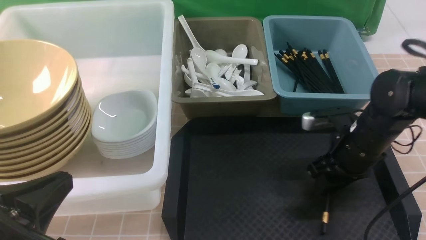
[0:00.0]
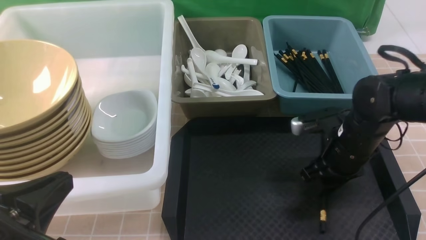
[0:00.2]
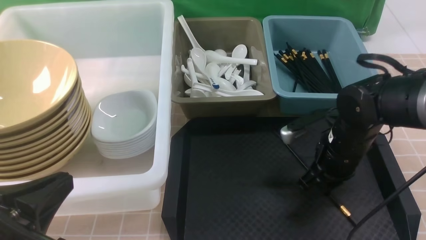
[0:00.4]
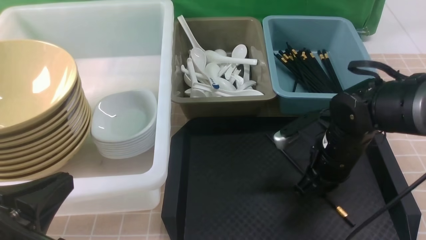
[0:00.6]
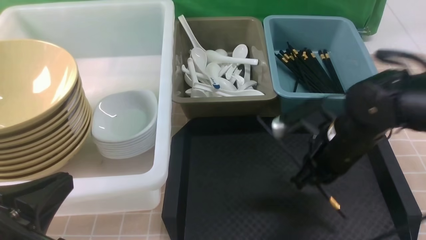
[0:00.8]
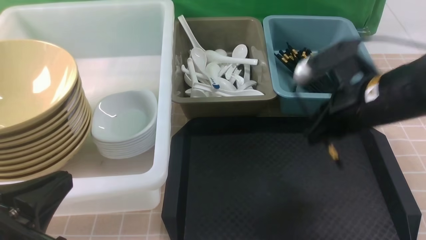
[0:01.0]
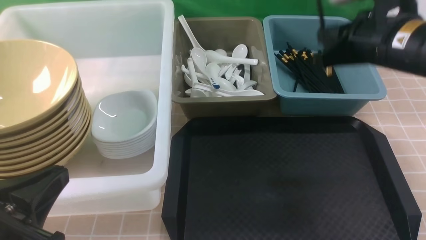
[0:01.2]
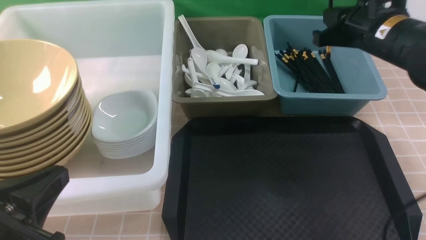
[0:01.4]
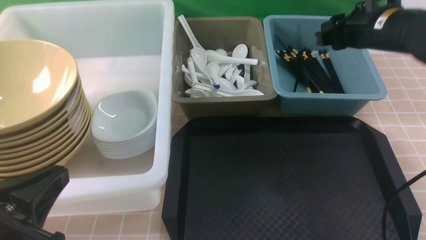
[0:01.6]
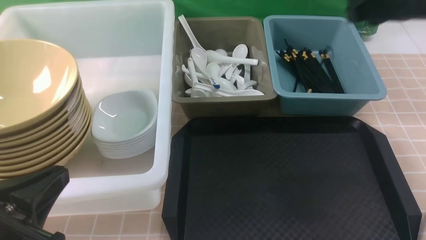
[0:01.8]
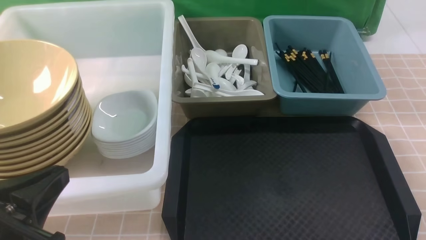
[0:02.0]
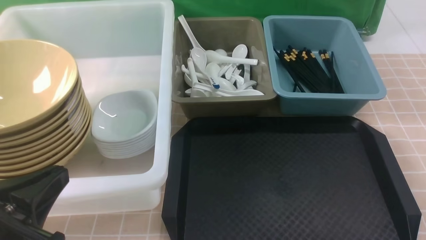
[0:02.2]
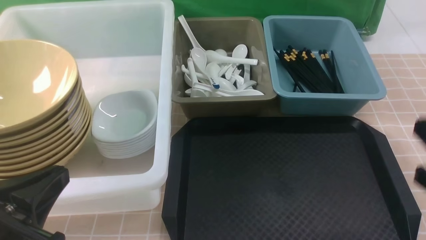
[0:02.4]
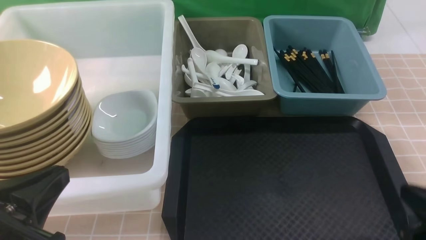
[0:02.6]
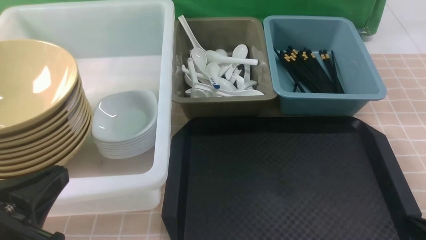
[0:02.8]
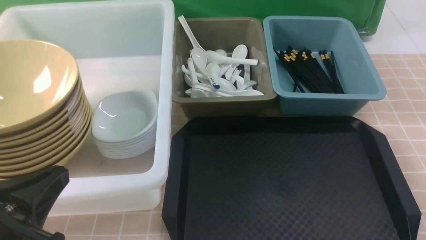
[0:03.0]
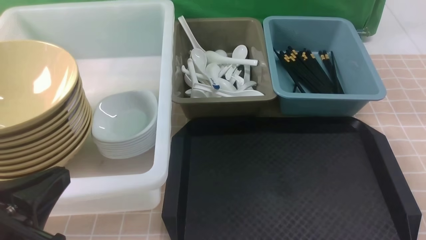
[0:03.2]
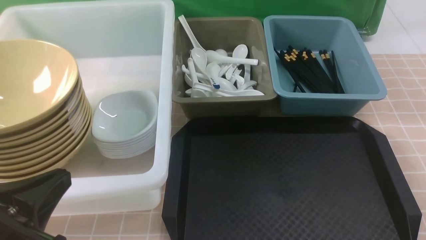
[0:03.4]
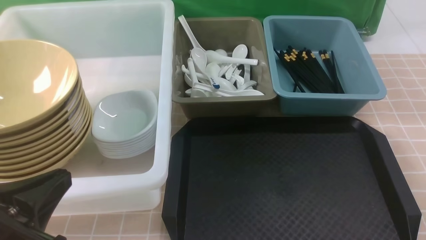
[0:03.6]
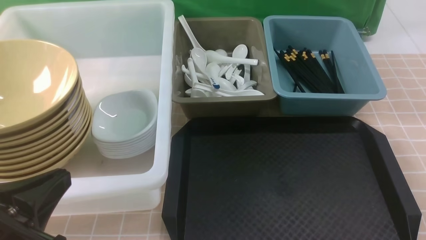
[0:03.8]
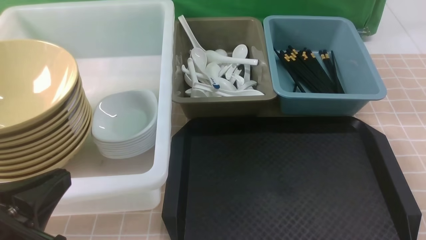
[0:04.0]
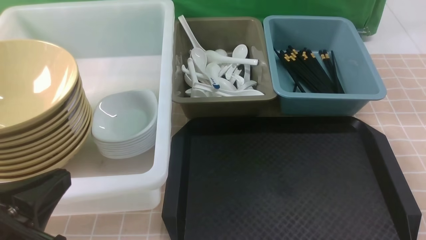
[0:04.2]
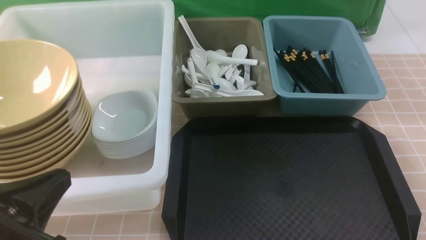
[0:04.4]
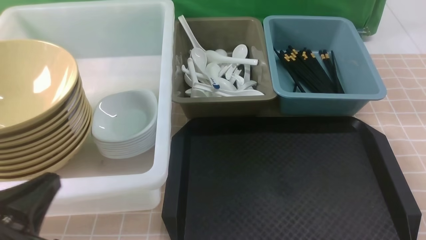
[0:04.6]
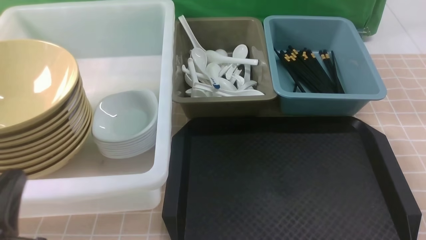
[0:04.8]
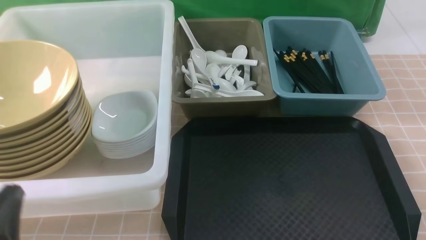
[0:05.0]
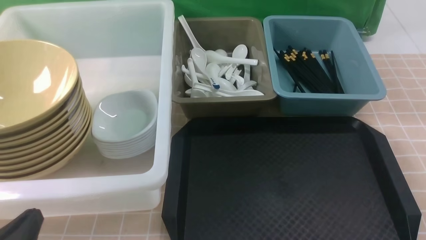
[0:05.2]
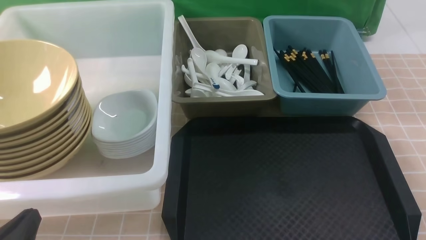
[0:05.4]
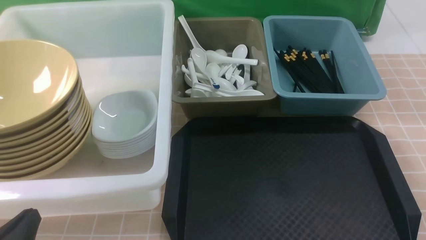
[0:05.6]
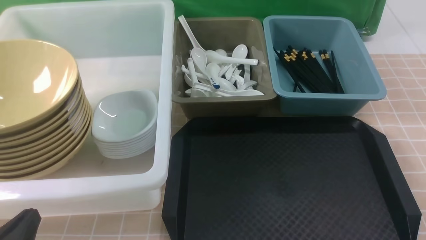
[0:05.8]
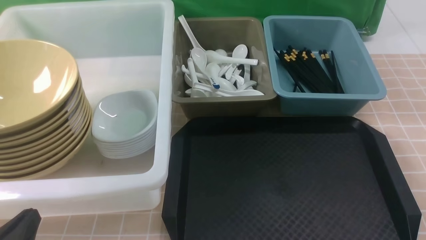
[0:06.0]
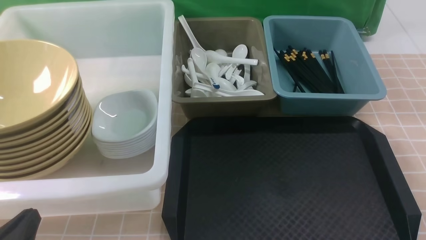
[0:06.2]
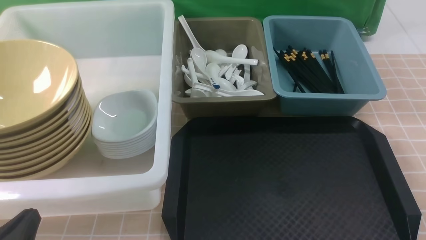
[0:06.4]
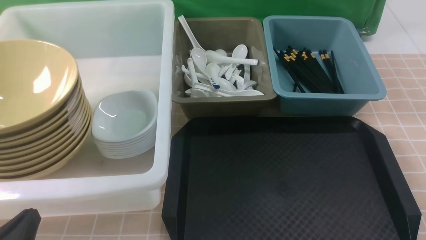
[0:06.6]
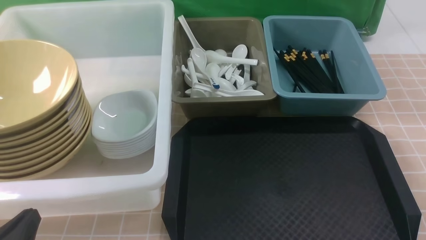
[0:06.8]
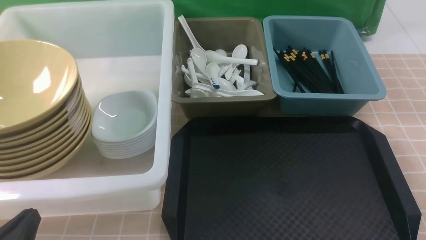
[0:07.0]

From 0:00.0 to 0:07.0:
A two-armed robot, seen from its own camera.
Task of the whole recording: on brown table put chopsticks spoon bowls plates into blue grey white boxes.
Step, from 0:01.0 to 0:01.8: use the right arm to put a chopstick into the small storage box on the right.
From 0:00.0 to 0:01.4: The right gripper goes about 15 cm upward.
From 0:01.4 to 0:02.8: The right gripper is displaced backward and downward by about 30 cm, and closes its fingers.
From 0:04.2 to 0:05.6: The left gripper is displaced downward by about 10 cm.
From 0:05.6 to 0:07.0: Both grippers stay put.

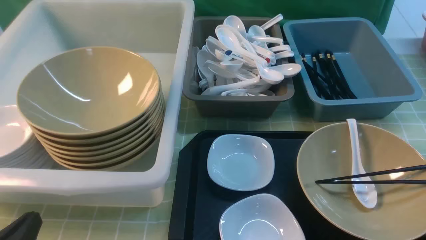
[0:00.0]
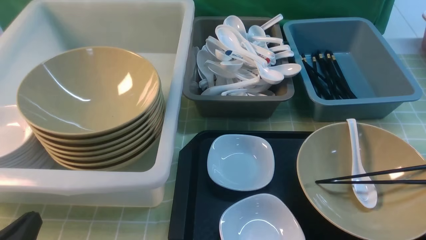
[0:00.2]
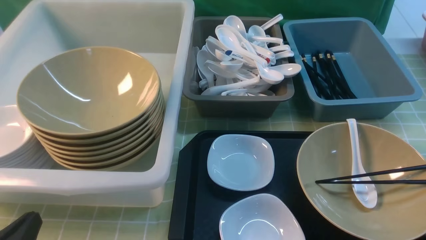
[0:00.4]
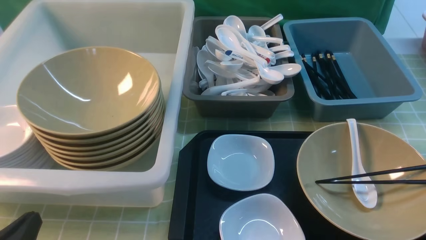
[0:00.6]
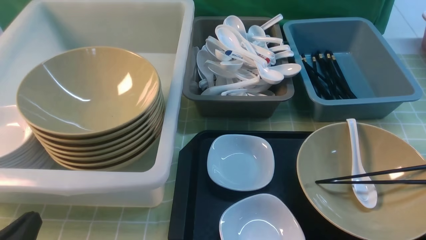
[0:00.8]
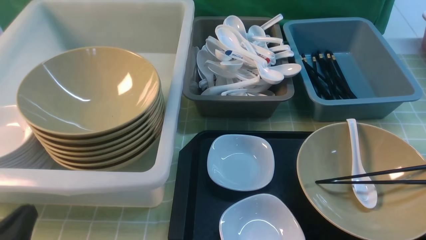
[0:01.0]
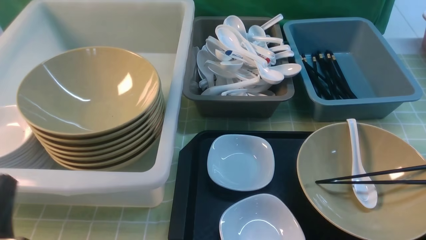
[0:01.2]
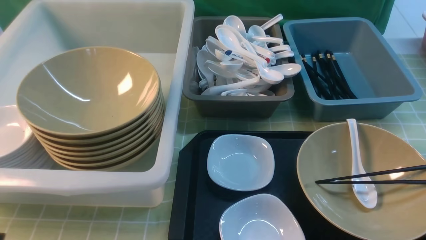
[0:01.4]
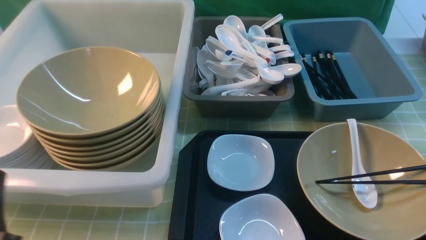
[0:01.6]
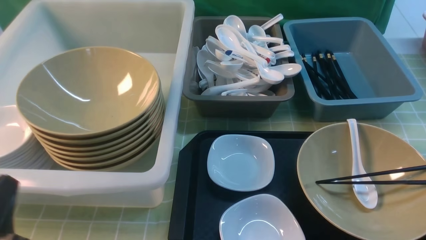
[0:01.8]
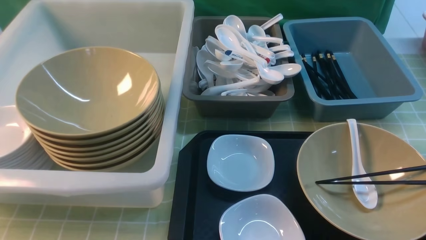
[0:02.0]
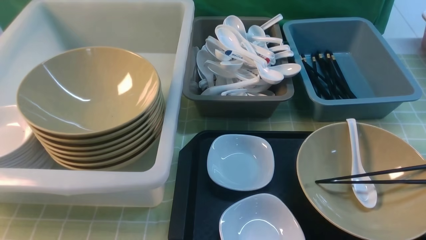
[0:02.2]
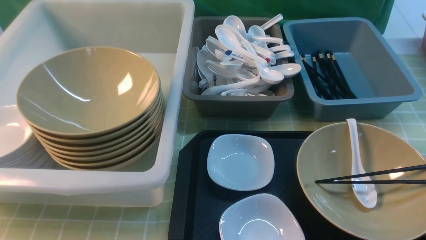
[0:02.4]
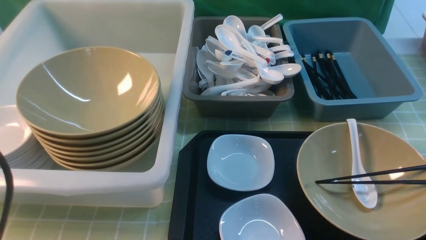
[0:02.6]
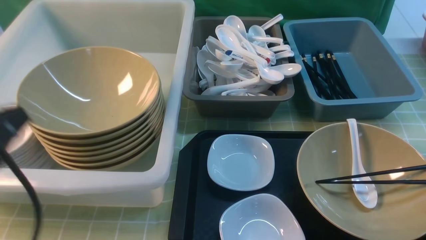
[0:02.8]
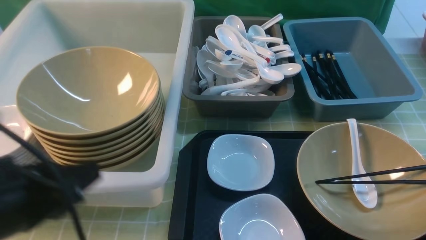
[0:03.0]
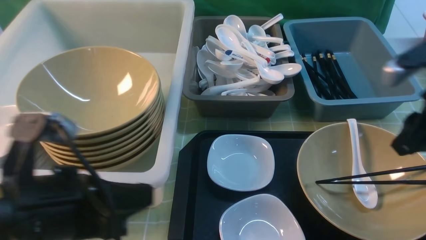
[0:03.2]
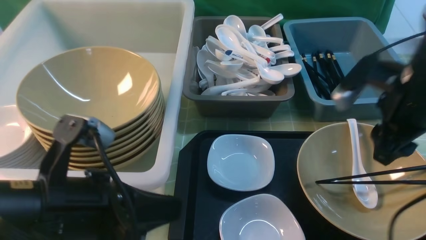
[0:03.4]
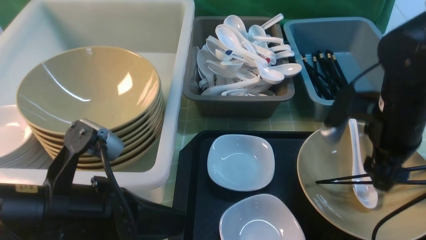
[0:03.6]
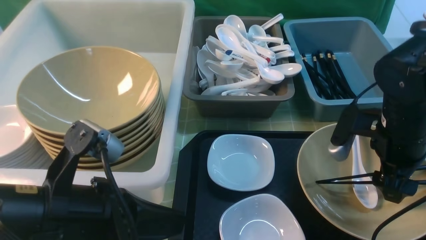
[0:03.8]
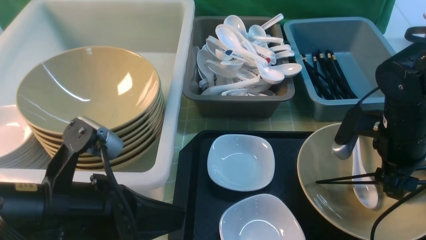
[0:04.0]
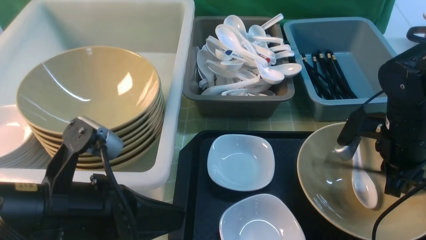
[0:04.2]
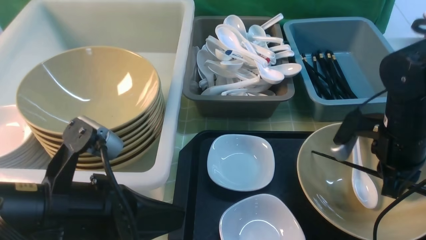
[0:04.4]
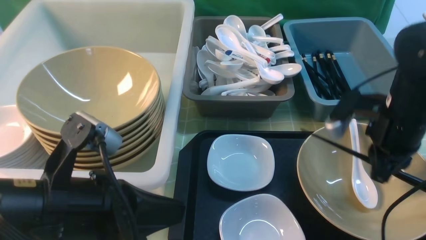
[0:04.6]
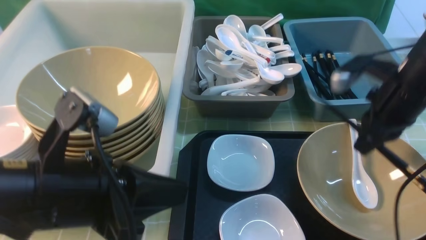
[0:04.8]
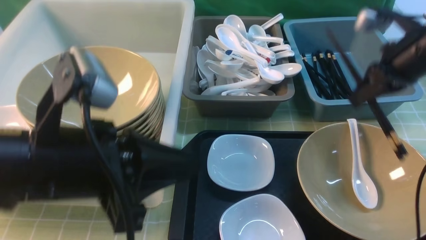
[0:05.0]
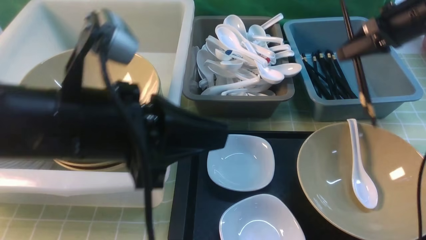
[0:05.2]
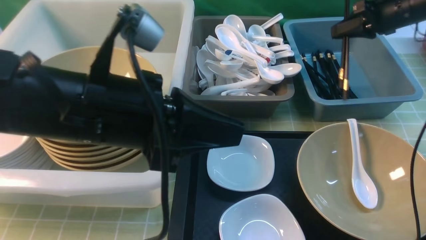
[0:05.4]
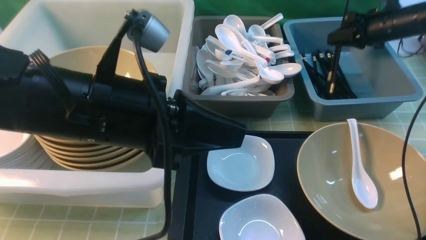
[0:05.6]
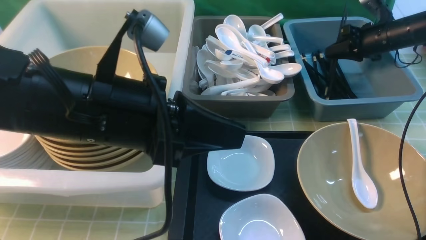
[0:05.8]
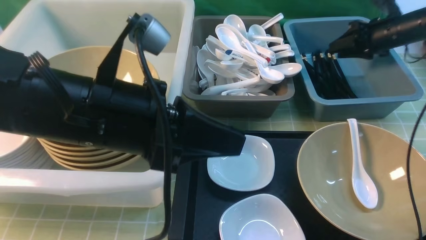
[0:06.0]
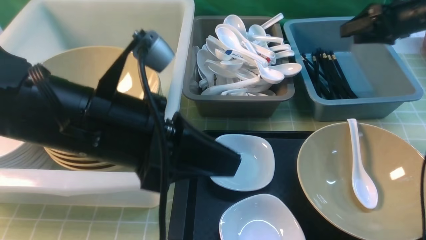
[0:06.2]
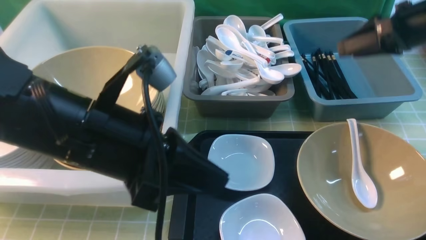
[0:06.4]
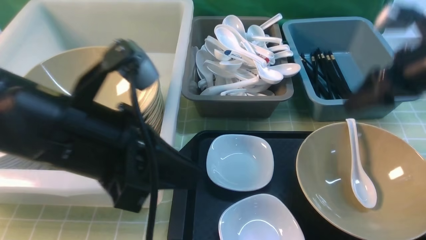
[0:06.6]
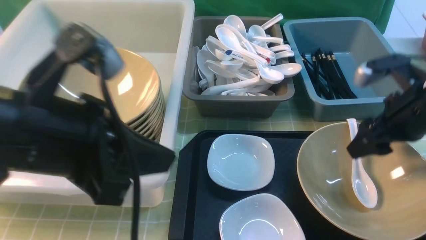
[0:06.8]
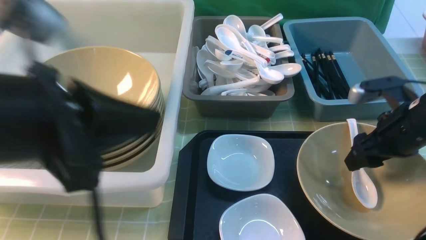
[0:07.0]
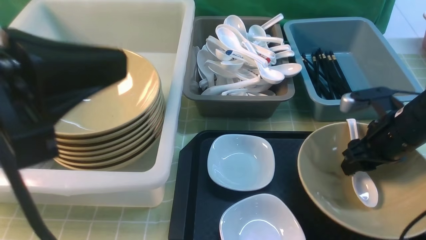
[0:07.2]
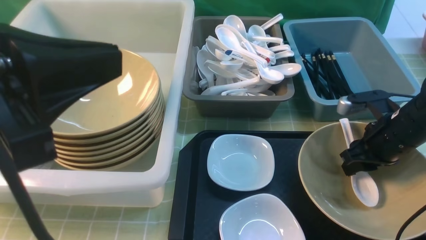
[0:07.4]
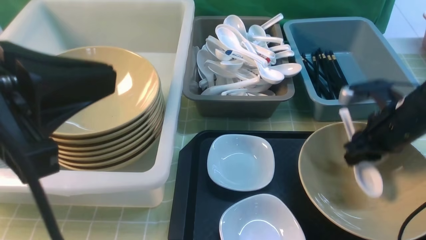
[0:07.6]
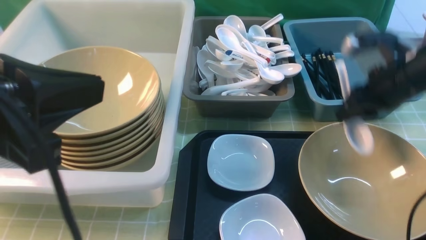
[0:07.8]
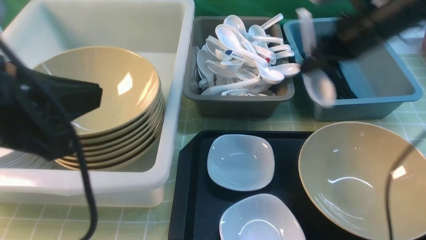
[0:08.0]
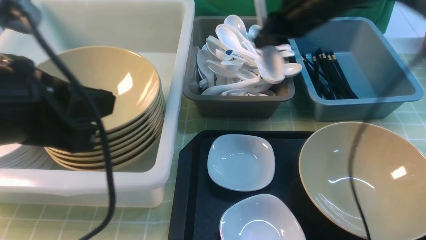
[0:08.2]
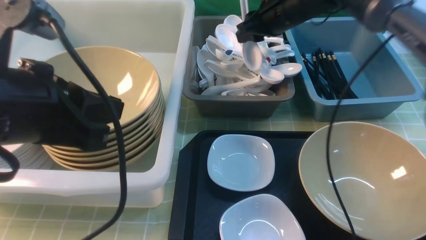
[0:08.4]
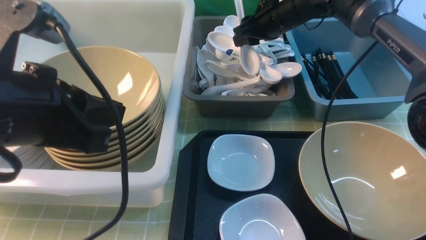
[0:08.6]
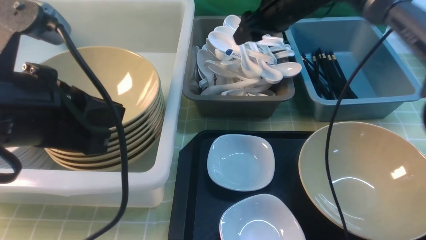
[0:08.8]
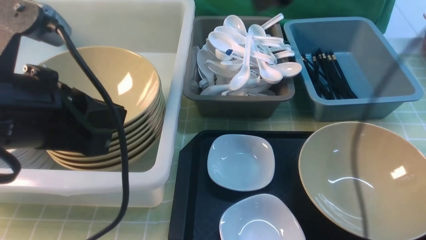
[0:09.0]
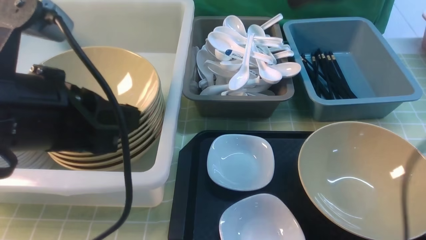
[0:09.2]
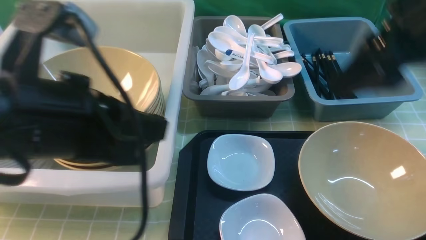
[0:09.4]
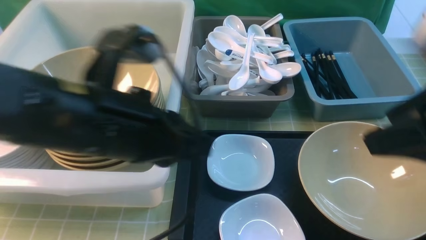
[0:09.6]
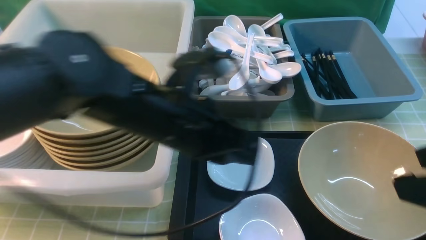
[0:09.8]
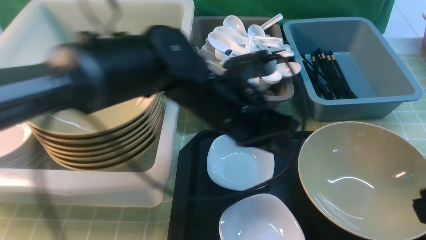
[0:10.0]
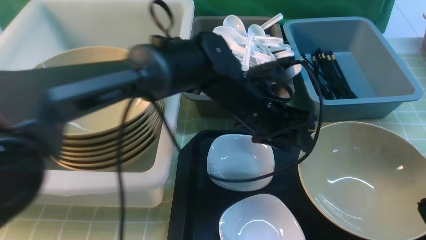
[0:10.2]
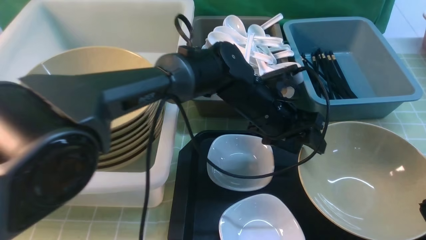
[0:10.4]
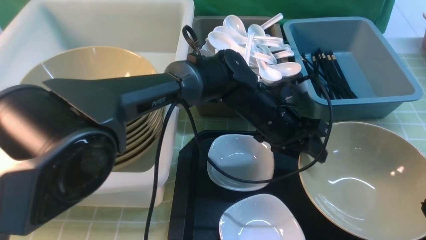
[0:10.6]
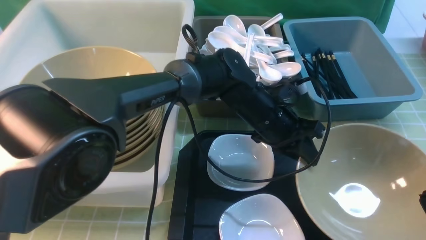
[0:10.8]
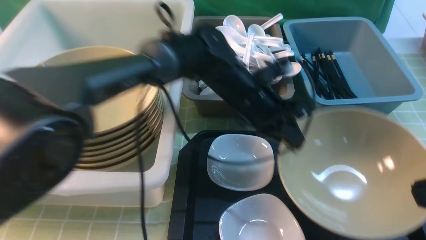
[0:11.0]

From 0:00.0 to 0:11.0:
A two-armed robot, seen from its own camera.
Task of the whole recording: on green table put chopsticks spoon bowls plates into blue grey white boxes.
Step, from 0:00.0 to 0:04.4: use the right arm to grab the chopsticks.
Step, from 0:04.6 to 0:05.8: use the right arm to put the chopsticks into the small storage box on the right.
Step, from 0:06.0 to 0:07.6: use the right arm to grab the soup spoon in the middle.
Step, from 0:07.8 to 0:08.8: use the right arm to put the soup spoon into the small storage box in the middle.
From 0:01.6 to 0:03.2: The left gripper heads to the right, upward and forward, covering some 15 cm. The right gripper shifts about 20 cm forward.
From 0:03.2 to 0:04.8: The right gripper moves forward, some 5 cm, goes downward and returns, approximately 10 cm each way, and closes its fingers.
From 0:04.8 to 0:06.2: The left gripper changes place by about 5 cm, while the right gripper travels forward and to the right by about 15 cm, and opens up.
From 0:06.2 to 0:07.8: The right gripper moves to the left and backward, roughly 15 cm, and closes up; the left gripper travels to the left, upward and backward by some 10 cm.
From 0:07.8 to 0:09.4: The left gripper changes place by approximately 10 cm; the right gripper goes about 15 cm upward and backward, and opens.
From 0:09.4 to 0:11.0: The right gripper goes approximately 15 cm backward, and closes up. Meanwhile the left gripper moves forward, to the right and downward, some 25 cm, and opens, then closes again.
